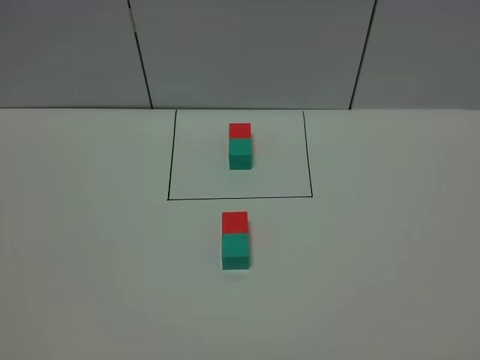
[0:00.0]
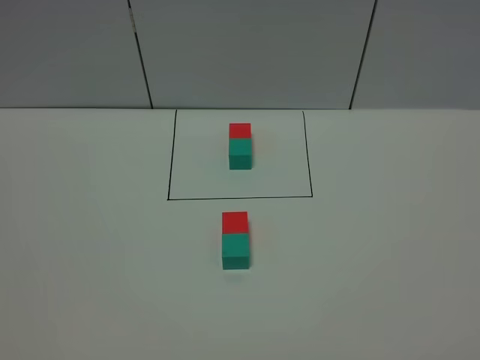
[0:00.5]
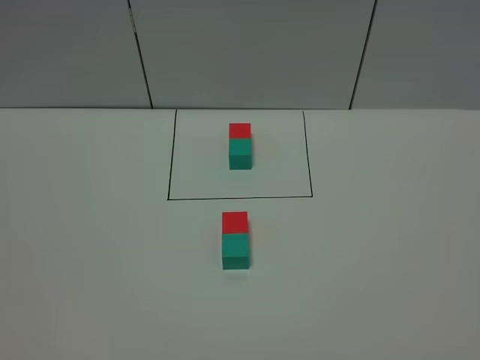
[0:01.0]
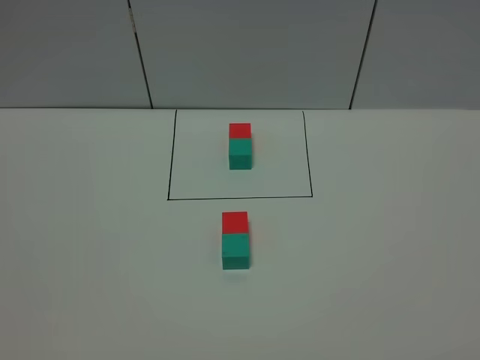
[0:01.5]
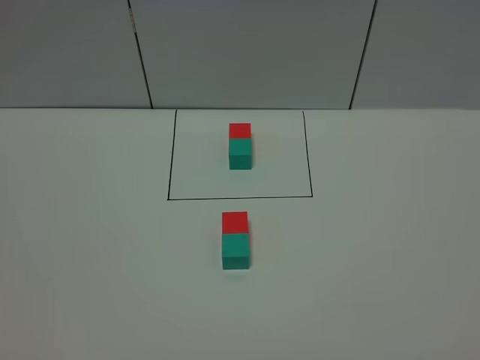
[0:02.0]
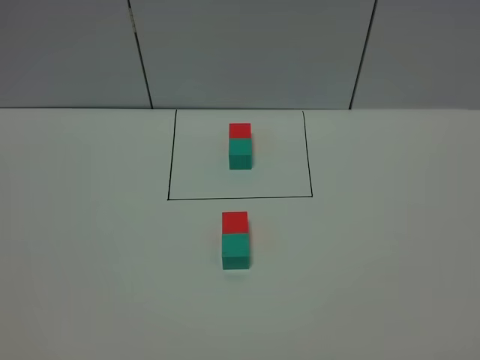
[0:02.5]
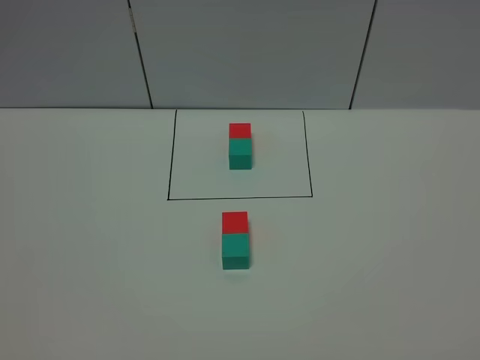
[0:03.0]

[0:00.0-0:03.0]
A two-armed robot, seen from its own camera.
Task of the whole recording: According to the building block template in front, assemble the scattered blocks together.
0:00.0 to 0:03.0: Both grippers stay about where they are.

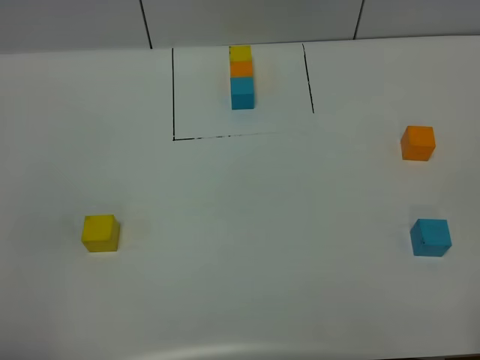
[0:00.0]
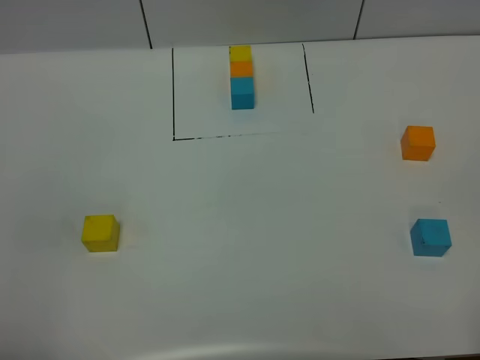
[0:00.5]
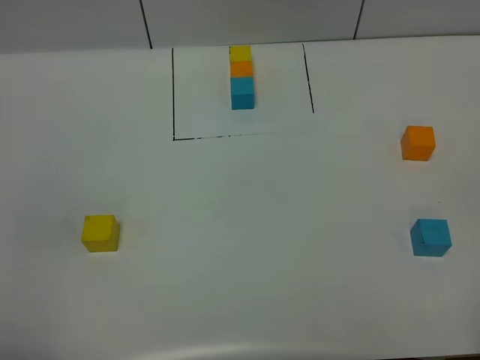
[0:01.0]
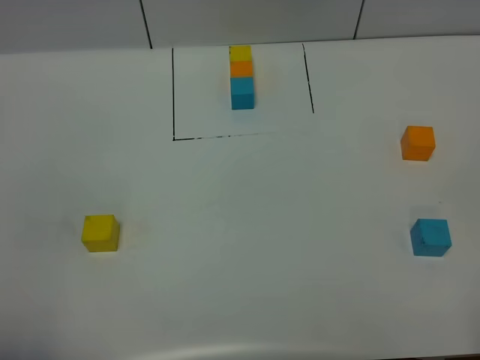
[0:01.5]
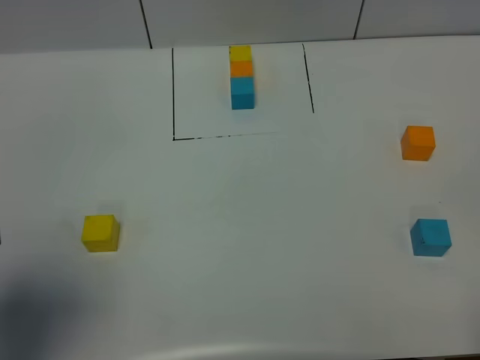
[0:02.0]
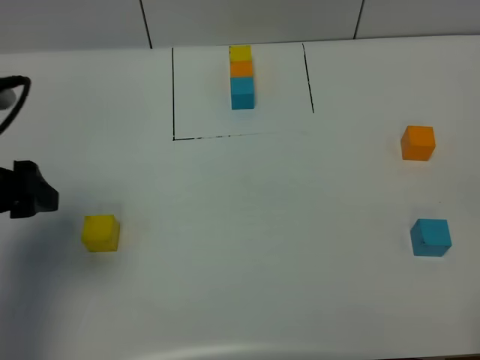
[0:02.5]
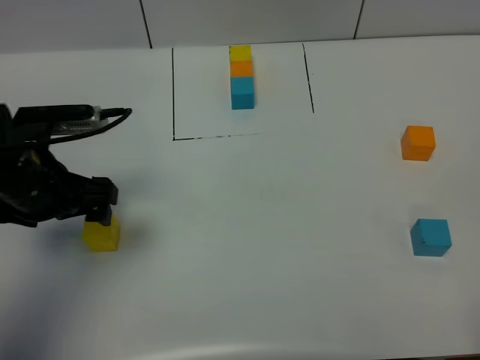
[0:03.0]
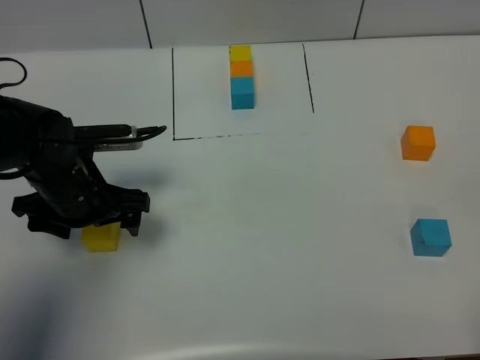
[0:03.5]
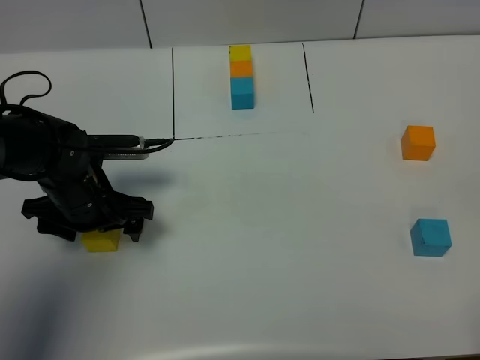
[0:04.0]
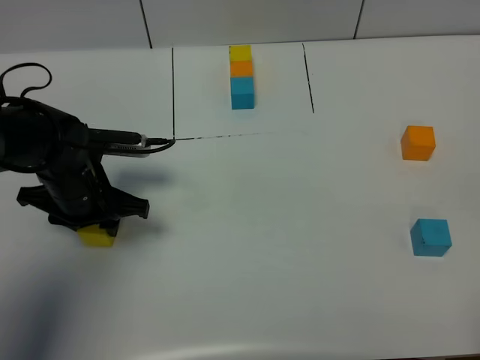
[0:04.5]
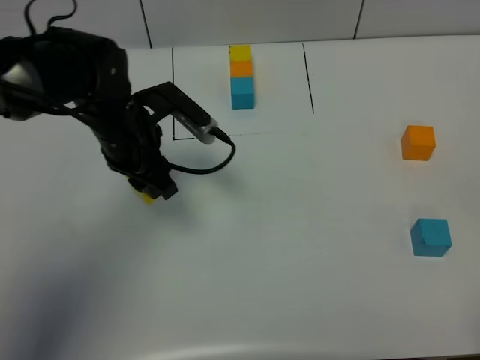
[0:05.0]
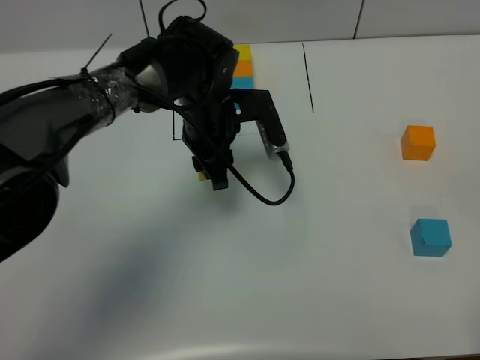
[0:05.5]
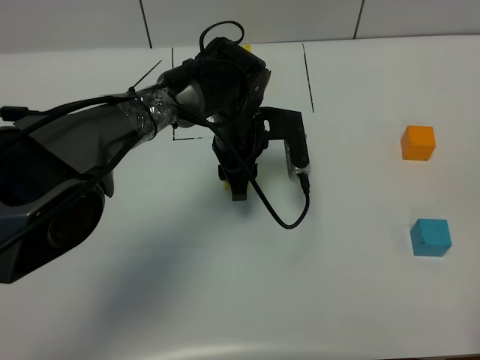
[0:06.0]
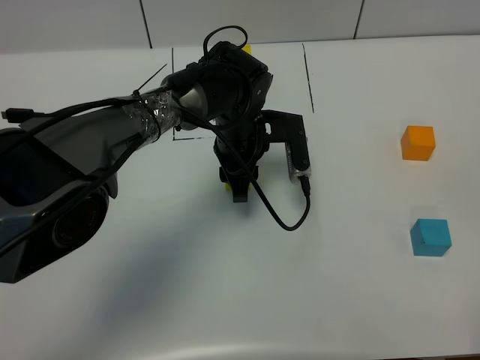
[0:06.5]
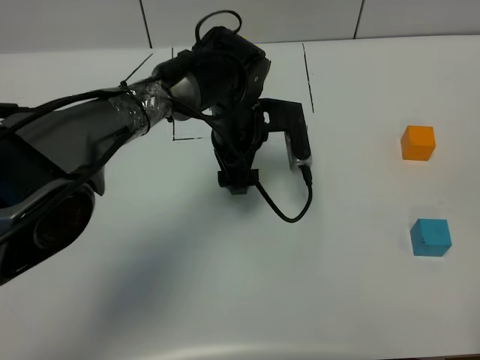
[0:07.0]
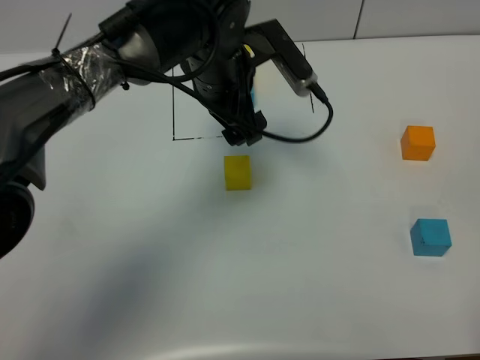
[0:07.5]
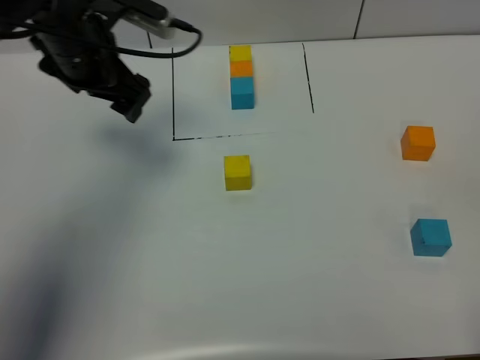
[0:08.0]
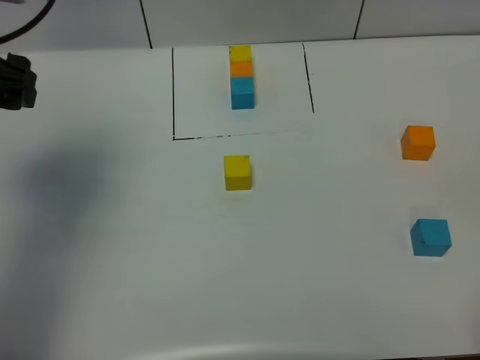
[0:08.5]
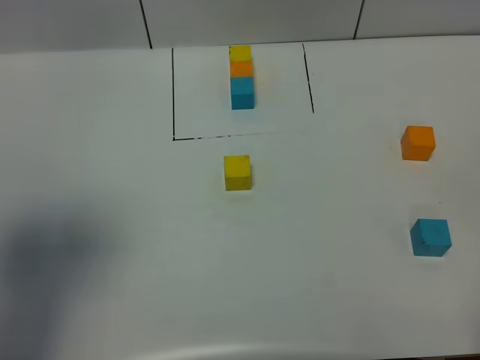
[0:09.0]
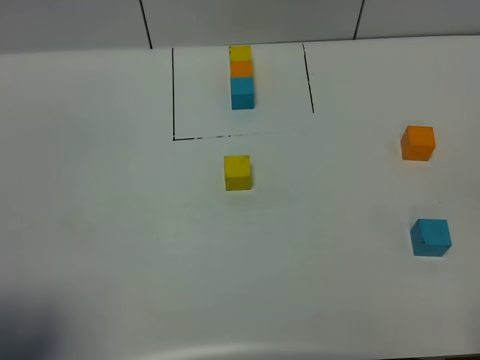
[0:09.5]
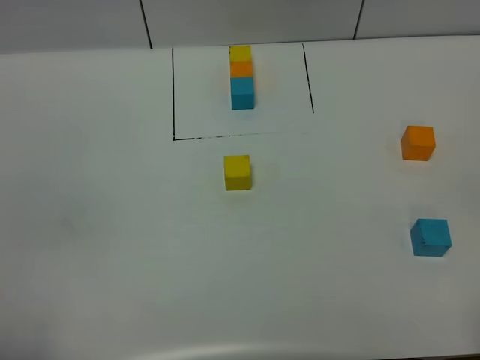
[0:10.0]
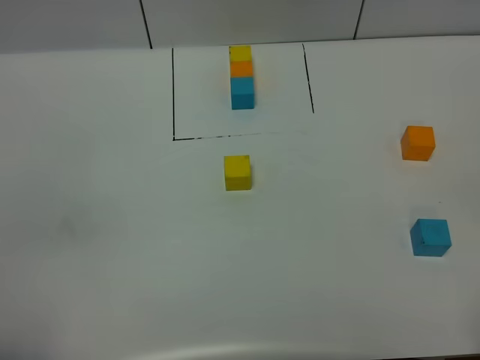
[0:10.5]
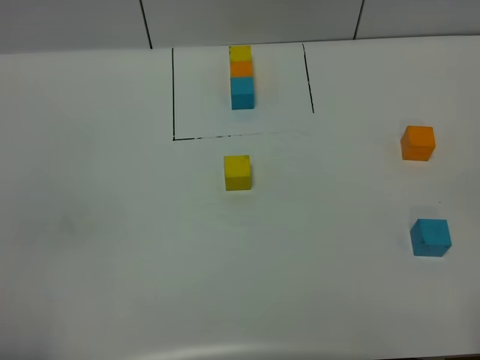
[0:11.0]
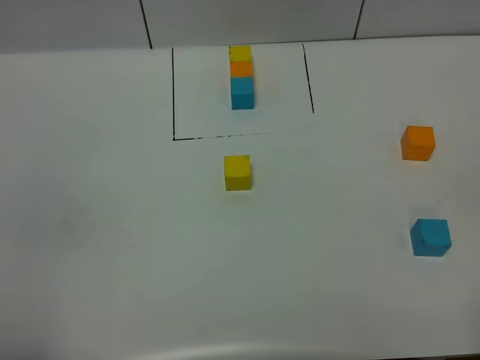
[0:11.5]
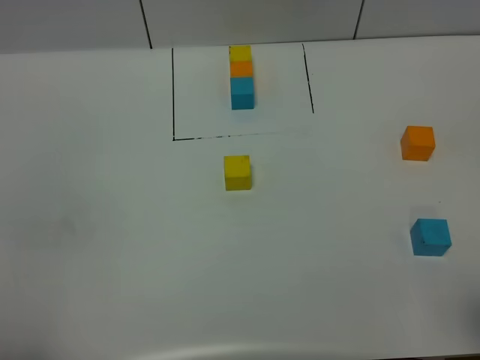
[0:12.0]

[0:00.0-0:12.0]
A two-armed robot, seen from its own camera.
Task of the whole recording: According to the building block template in front, assemble the scattered blocks together.
Step, 0:02.0 to 0:07.0: Put the yellow cube in the center of the table.
0:00.0 to 0:02.0: The left gripper goes roughly 10 cm forward.
0:02.0 to 0:04.0: The left gripper travels downward, forward and to the right by approximately 30 cm.
0:04.0 to 0:06.0: The left gripper travels to the right and forward by approximately 20 cm, and closes.
0:06.0 to 0:08.0: The left gripper travels to the left and upward by approximately 25 cm, and opens.
0:08.0 to 0:10.0: The left gripper shifts some 40 cm backward.

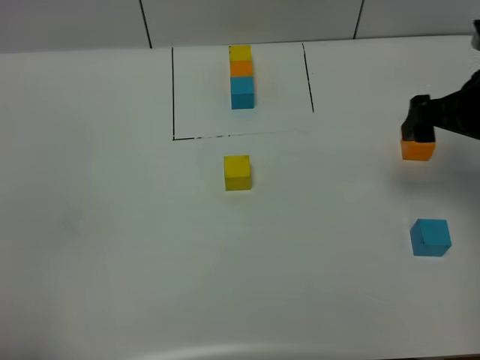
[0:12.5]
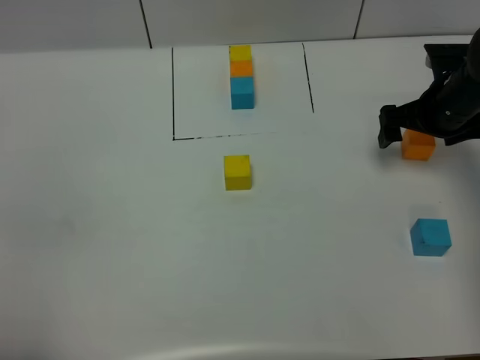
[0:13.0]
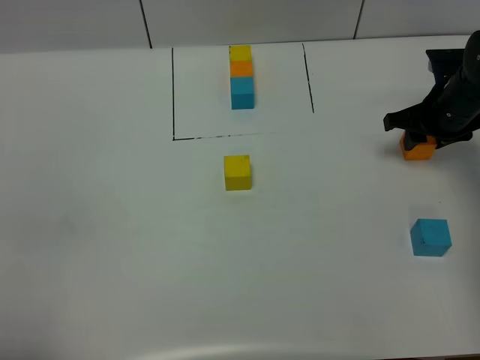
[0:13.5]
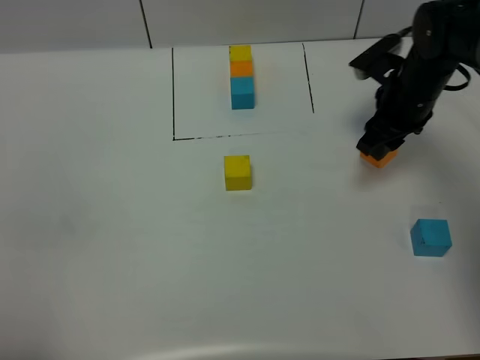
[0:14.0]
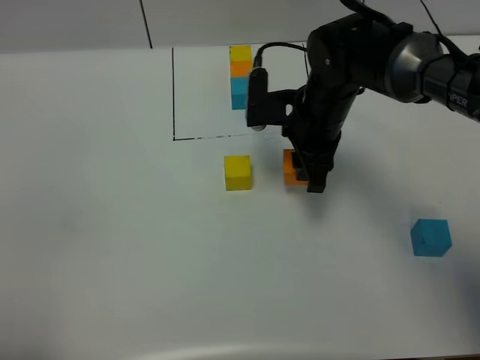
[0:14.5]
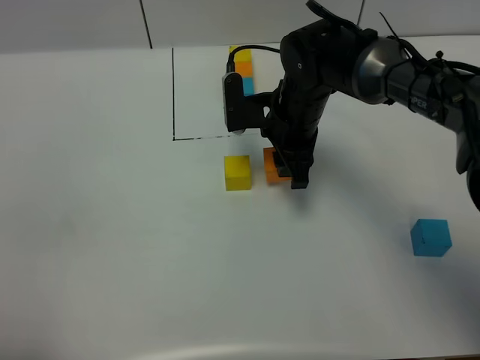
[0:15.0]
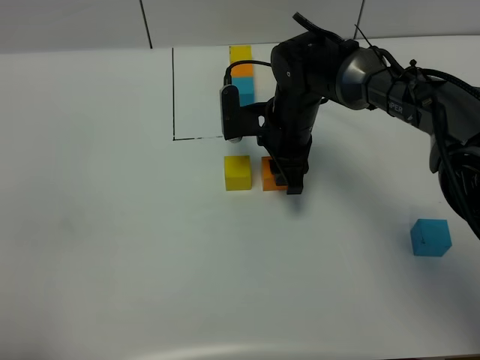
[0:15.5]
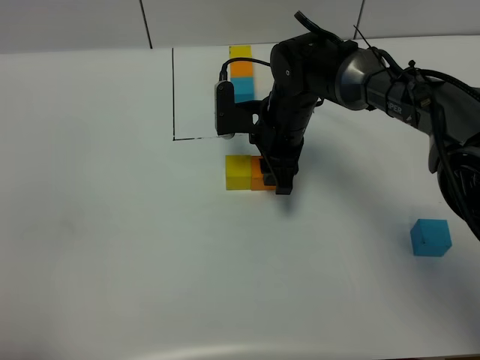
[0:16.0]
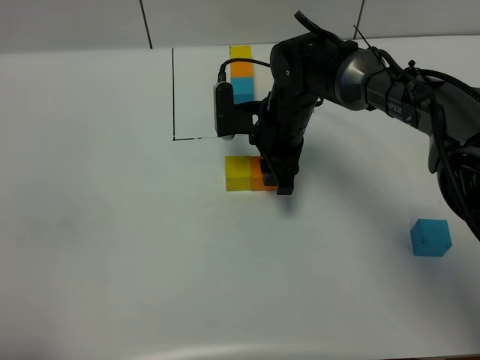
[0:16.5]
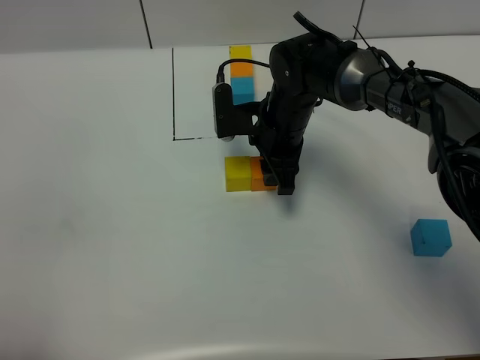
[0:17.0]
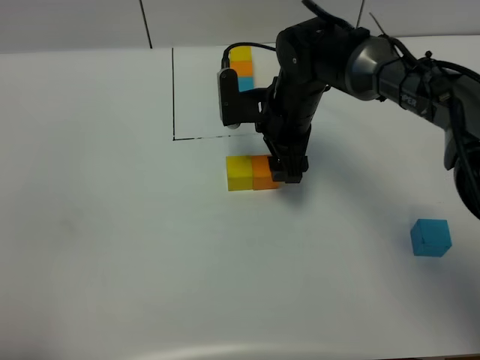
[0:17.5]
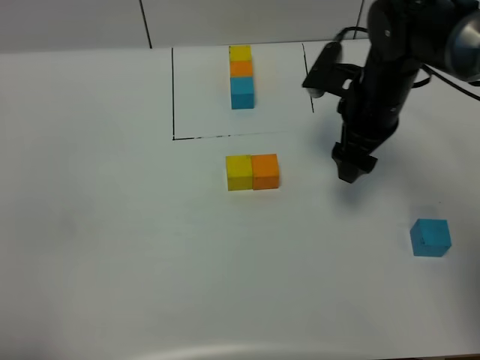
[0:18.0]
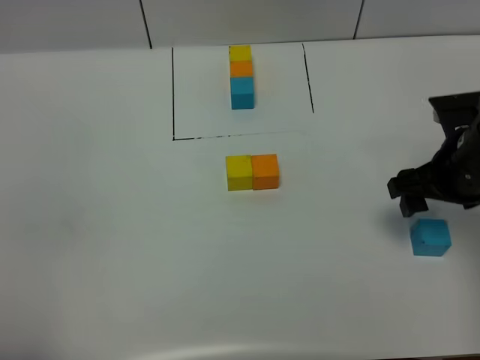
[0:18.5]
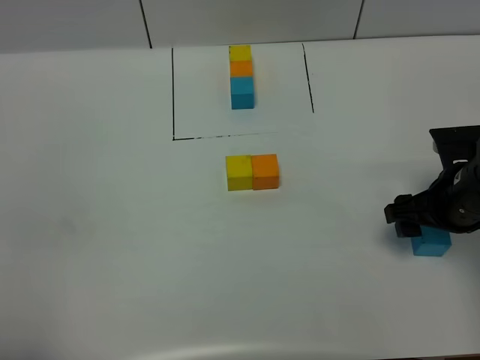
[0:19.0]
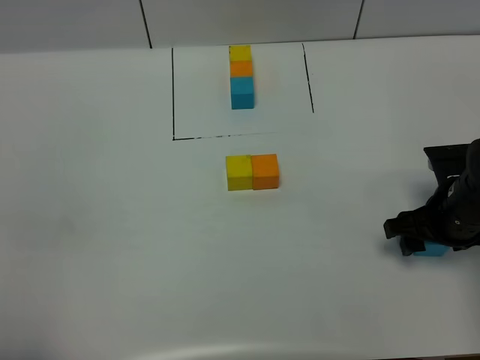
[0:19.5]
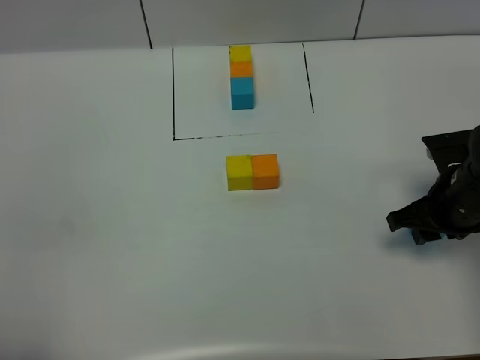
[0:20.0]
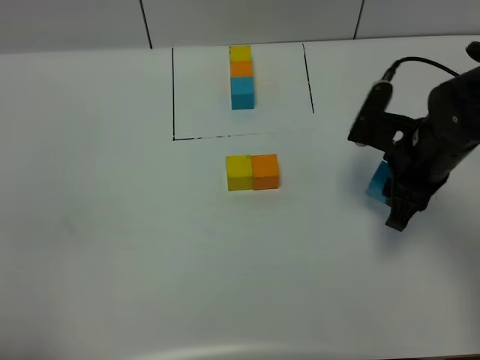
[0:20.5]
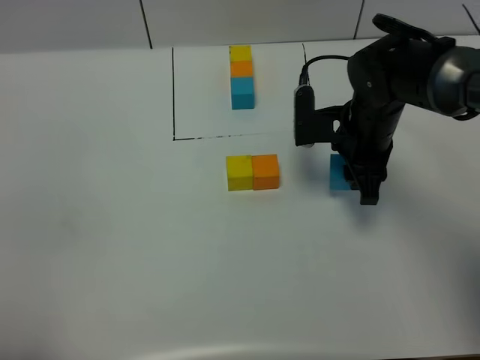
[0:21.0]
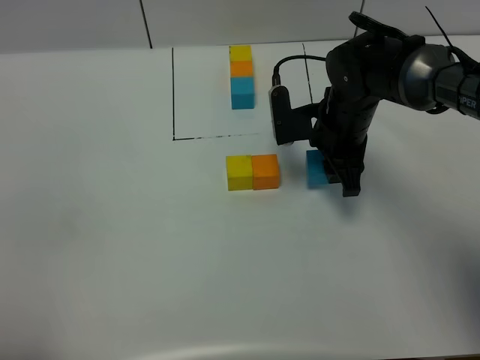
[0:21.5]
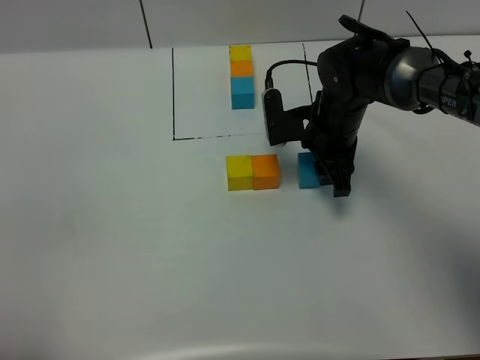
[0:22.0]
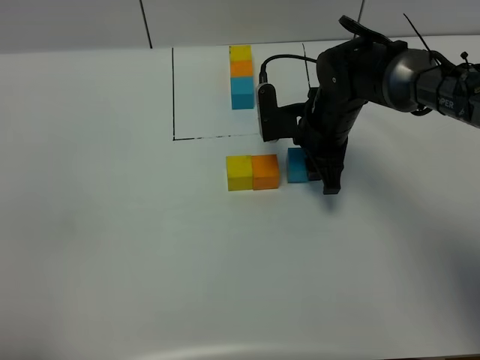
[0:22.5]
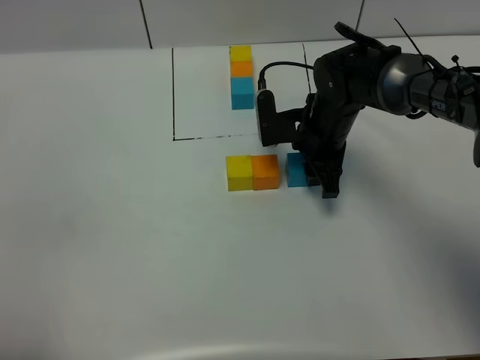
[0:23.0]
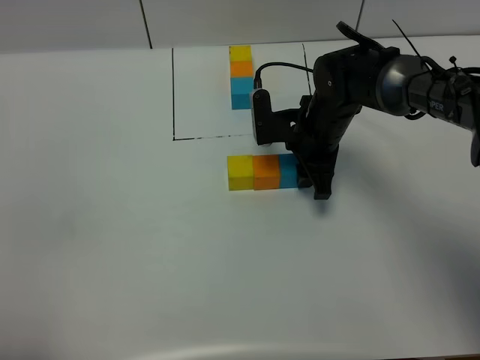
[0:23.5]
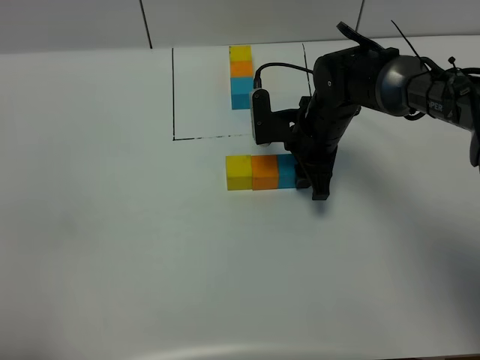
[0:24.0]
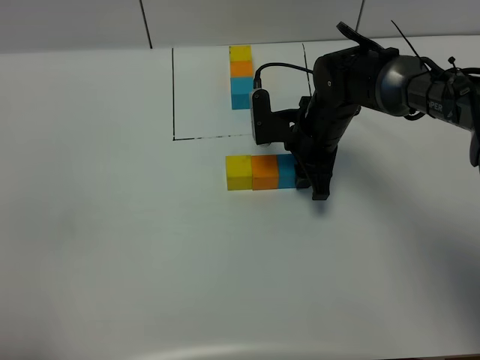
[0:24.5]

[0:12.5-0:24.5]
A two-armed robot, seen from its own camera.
Task of the whole recording: According to the building block template in front, assemble the scattered blocks together.
Step, 0:12.5 to 0:17.0: Put the orange cube on the right of the yellow cube.
0:12.5 to 0:14.5: The right gripper is displaced to the left by about 20 cm, and closes.
0:14.5 to 0:16.5: The right gripper shifts by roughly 5 cm.
0:16.5 to 0:18.5: The right gripper shifts about 25 cm to the right and backward, and opens.
0:18.5 to 0:20.5: The right gripper is displaced to the left by roughly 5 cm, and closes its fingers.
0:20.5 to 0:22.5: The right gripper moves to the left, forward and downward, some 15 cm.
0:22.5 to 0:24.5: There are only small adjustments of the grippers.
